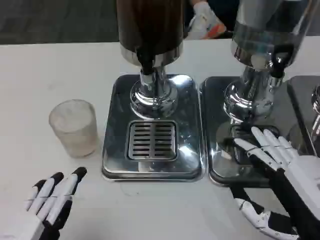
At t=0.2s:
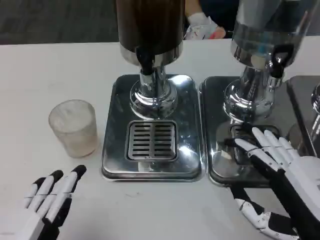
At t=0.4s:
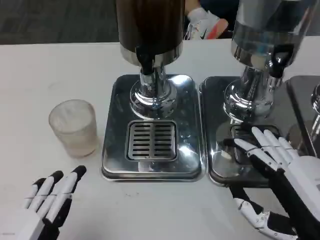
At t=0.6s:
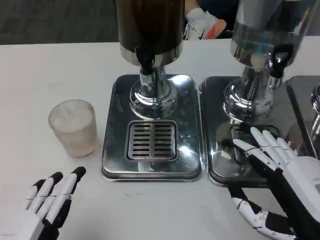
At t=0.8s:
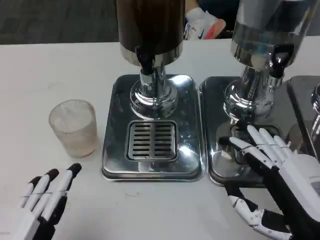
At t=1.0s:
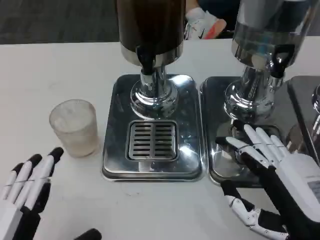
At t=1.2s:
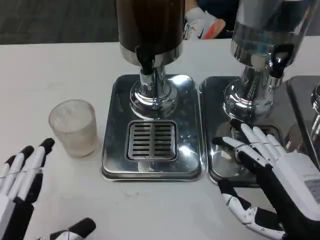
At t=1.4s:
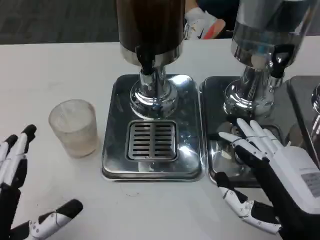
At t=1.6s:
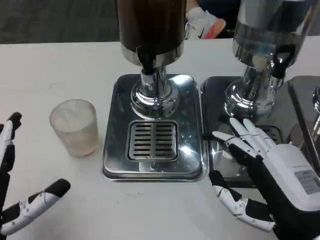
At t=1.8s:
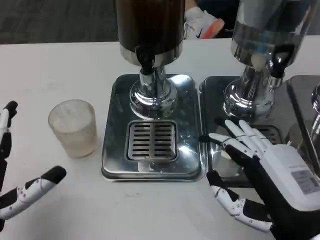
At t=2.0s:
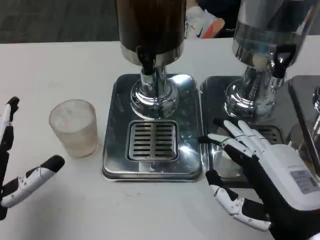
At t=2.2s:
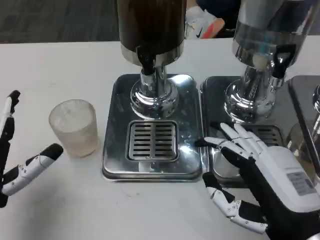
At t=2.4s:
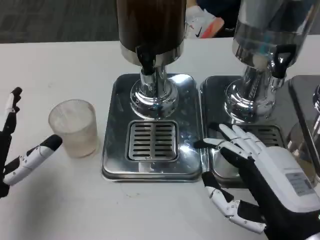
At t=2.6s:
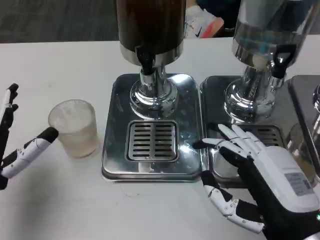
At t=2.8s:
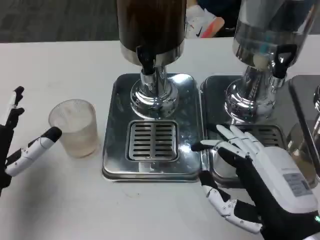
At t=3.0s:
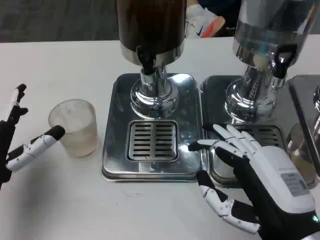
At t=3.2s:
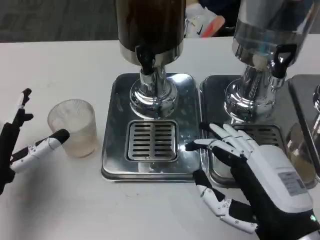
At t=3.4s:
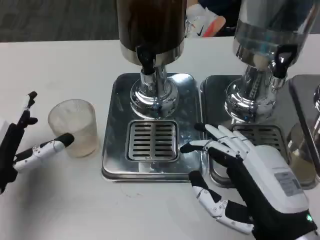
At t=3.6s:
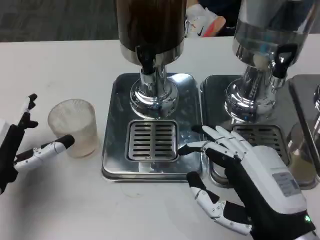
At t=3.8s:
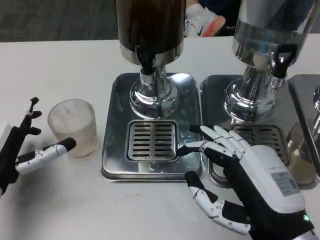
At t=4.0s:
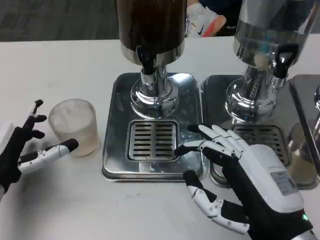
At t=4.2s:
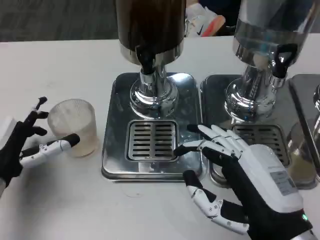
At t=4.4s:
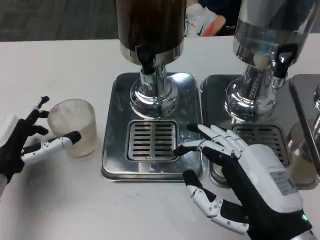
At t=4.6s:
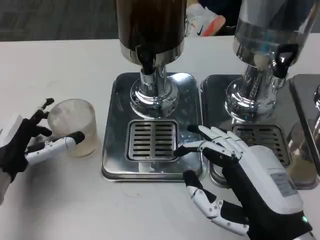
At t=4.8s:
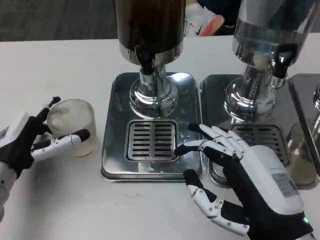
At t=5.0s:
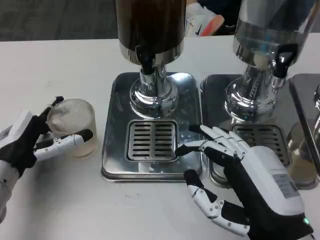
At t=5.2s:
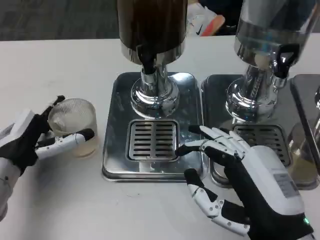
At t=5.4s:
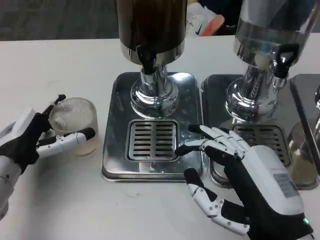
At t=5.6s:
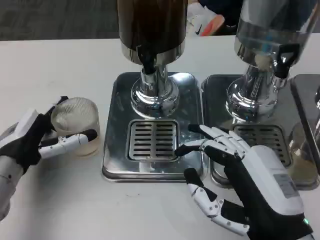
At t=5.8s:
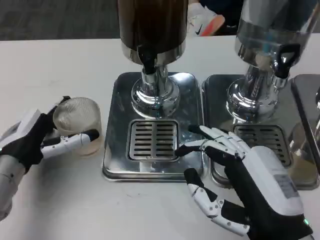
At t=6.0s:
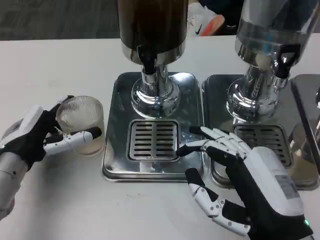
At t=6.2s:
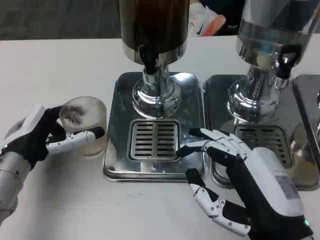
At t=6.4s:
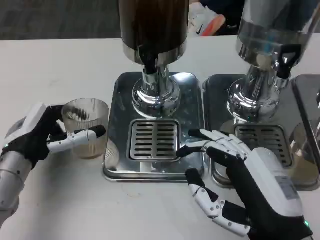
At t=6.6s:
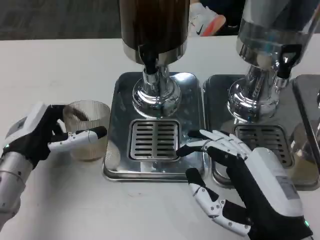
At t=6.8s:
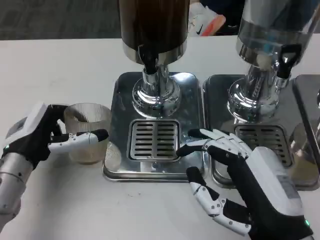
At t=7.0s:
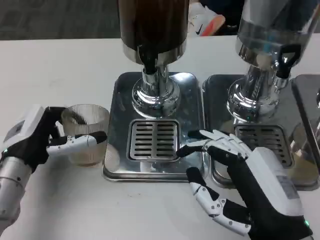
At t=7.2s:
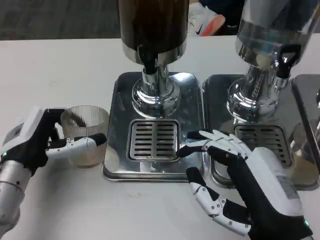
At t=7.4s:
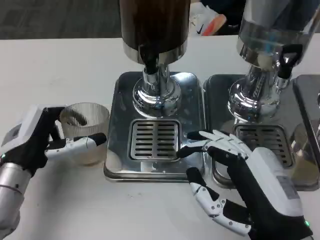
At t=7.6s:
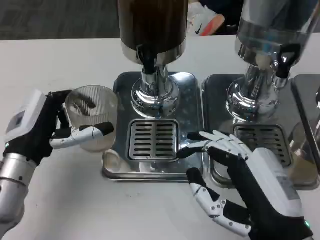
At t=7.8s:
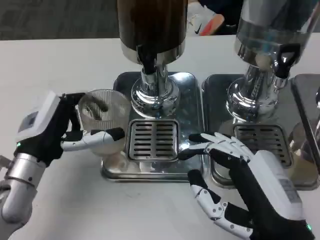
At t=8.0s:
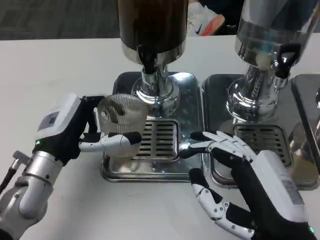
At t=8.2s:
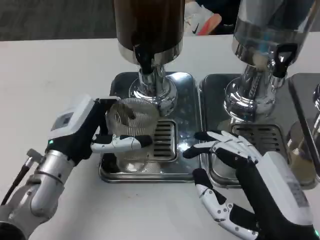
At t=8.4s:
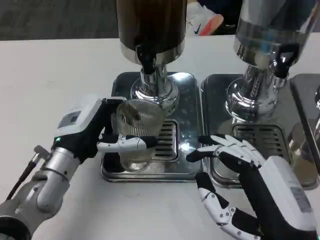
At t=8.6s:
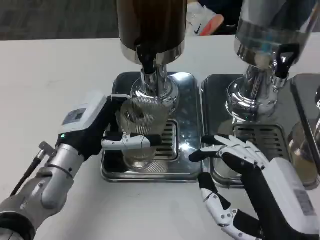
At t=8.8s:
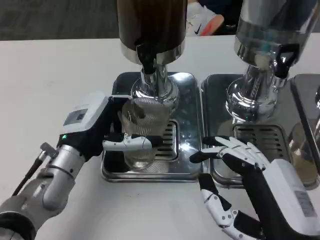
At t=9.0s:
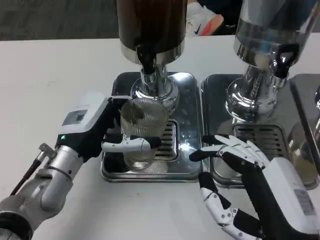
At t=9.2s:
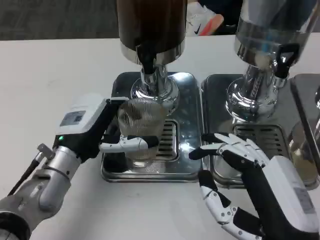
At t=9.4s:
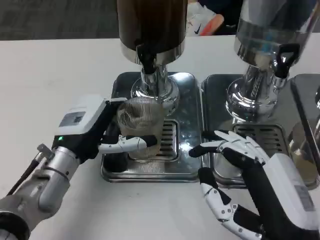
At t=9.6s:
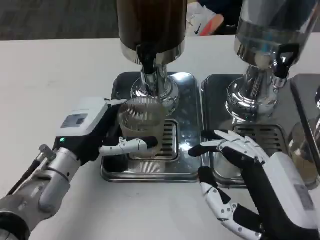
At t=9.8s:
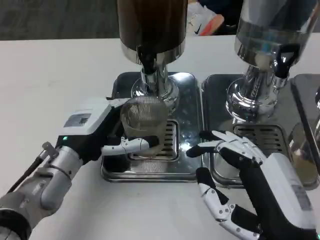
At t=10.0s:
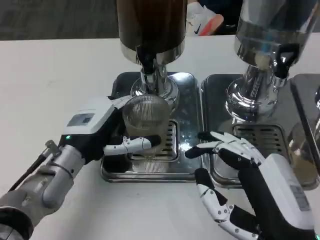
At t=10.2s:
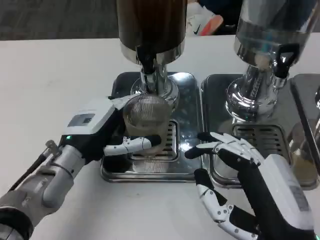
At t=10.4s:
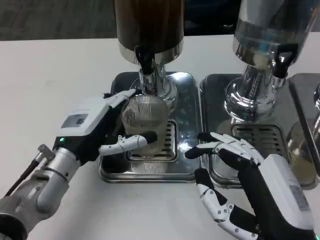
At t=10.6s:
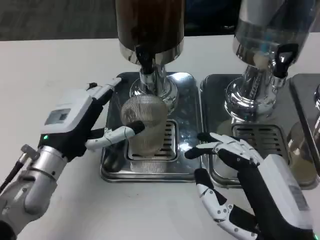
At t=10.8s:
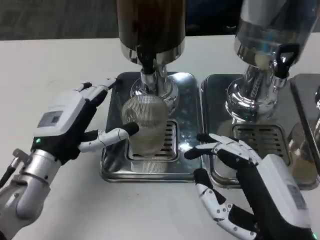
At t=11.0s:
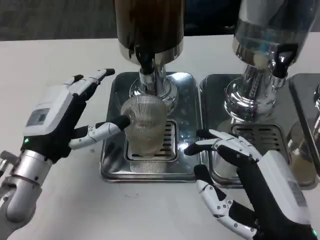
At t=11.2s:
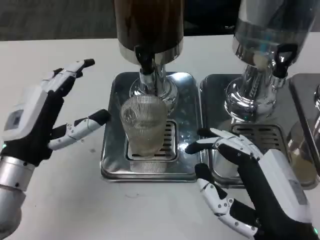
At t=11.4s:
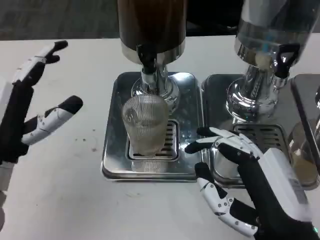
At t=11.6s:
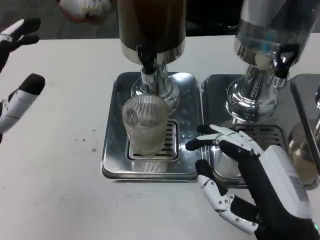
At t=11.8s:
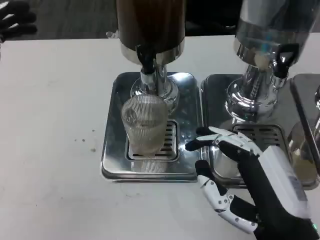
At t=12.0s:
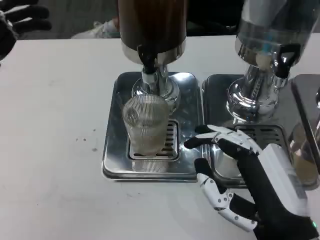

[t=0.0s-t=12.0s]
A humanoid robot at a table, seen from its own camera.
Task of the whole recording: Grasp the cup under the faucet to collect the drink, then remove the cup.
t=0.0s to t=1.6s: The left hand travels forward by about 5 cm.
t=1.6s to t=3.0s: The left hand shifts roughly 10 cm forward.
t=3.0s to t=4.4s: The hands make only small movements.
t=7.6s to t=9.0s: The left hand is displaced to the right by about 5 cm.
t=9.0s to t=10.4s: The hands move only a little.
t=10.4s to t=12.0s: The left hand heads upward and to the left, covering approximately 15 cm.

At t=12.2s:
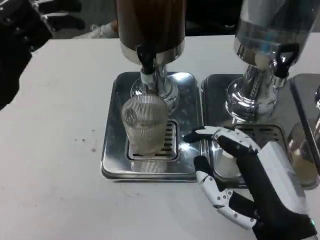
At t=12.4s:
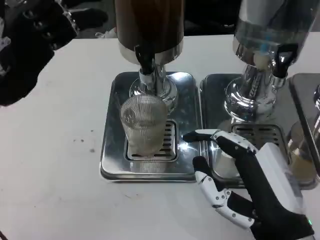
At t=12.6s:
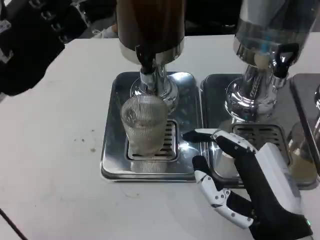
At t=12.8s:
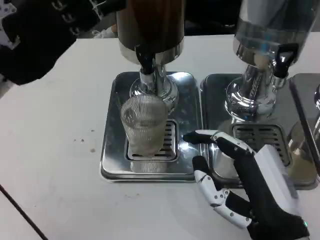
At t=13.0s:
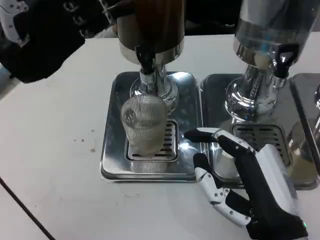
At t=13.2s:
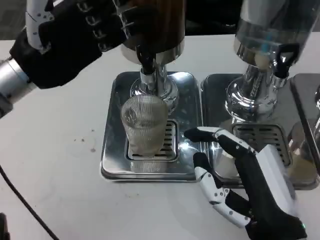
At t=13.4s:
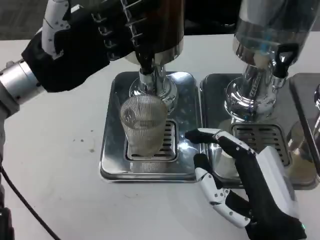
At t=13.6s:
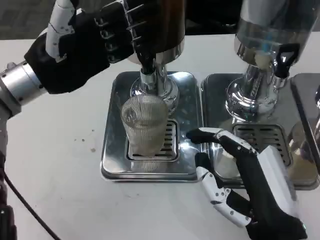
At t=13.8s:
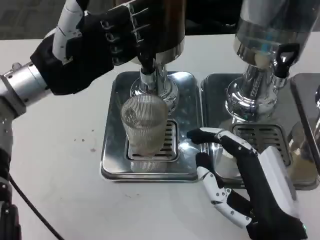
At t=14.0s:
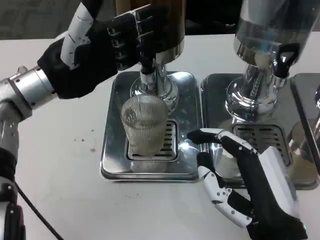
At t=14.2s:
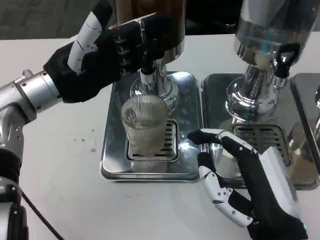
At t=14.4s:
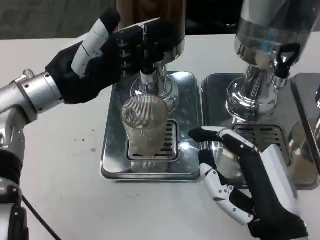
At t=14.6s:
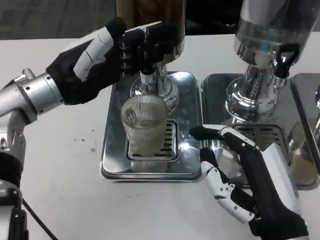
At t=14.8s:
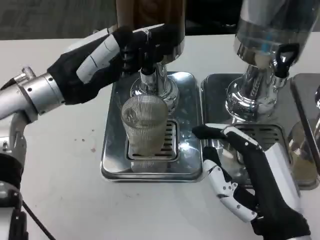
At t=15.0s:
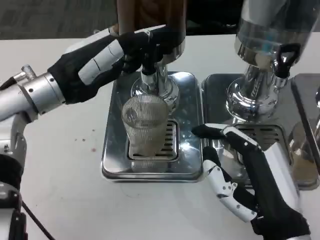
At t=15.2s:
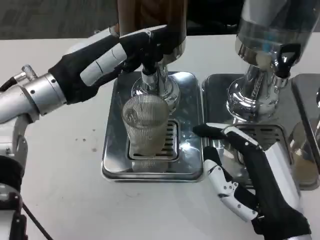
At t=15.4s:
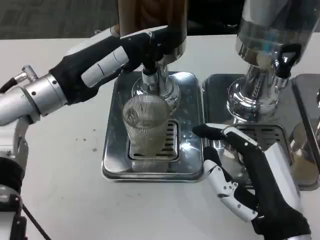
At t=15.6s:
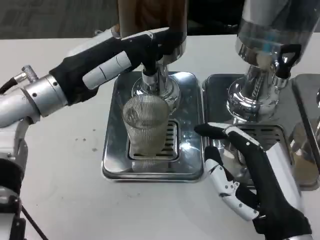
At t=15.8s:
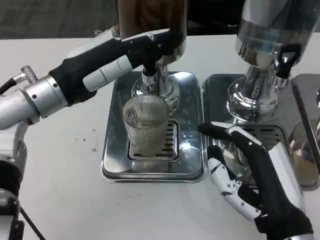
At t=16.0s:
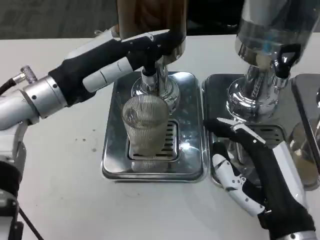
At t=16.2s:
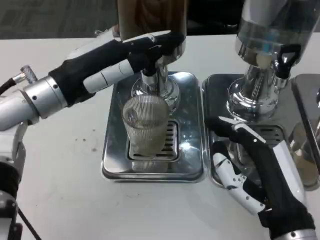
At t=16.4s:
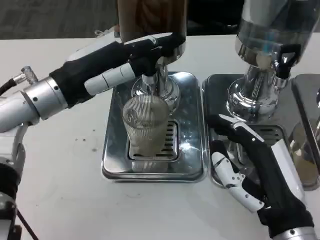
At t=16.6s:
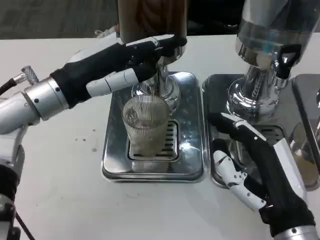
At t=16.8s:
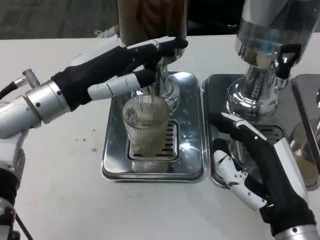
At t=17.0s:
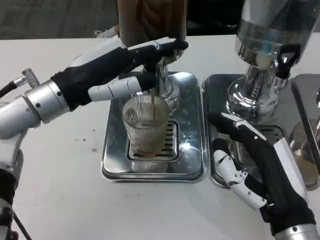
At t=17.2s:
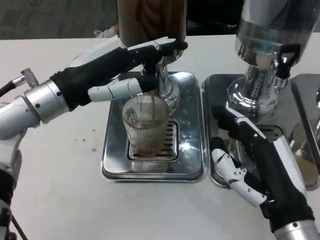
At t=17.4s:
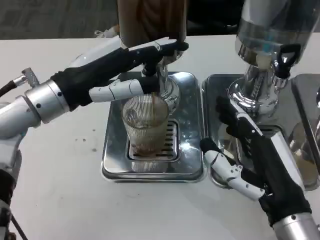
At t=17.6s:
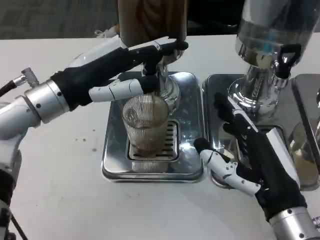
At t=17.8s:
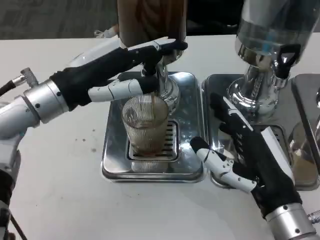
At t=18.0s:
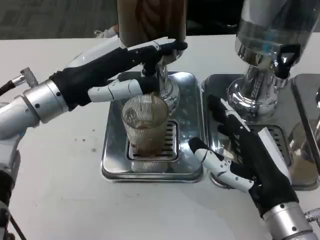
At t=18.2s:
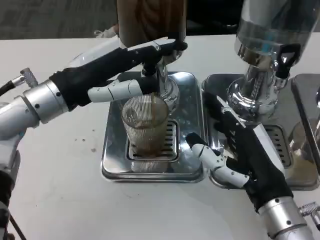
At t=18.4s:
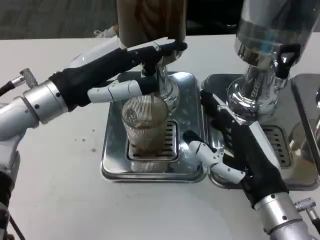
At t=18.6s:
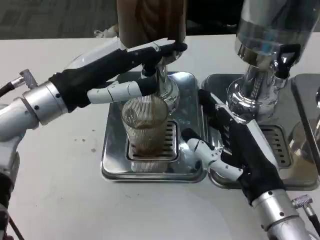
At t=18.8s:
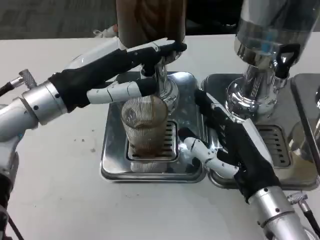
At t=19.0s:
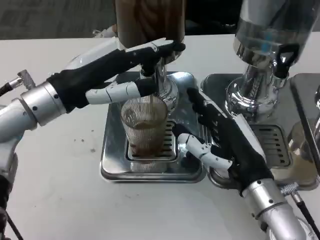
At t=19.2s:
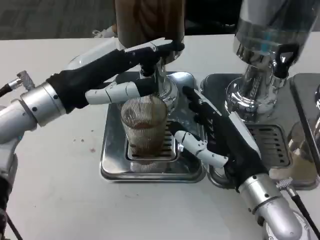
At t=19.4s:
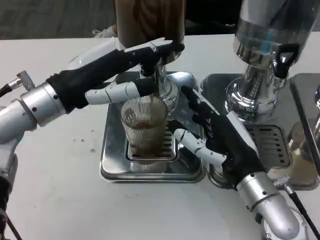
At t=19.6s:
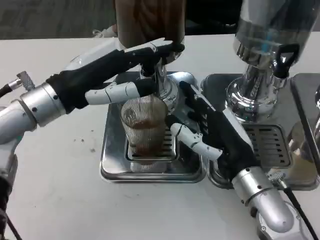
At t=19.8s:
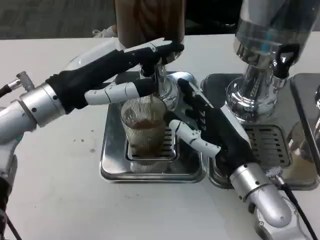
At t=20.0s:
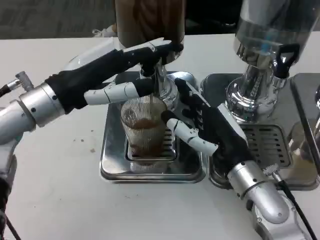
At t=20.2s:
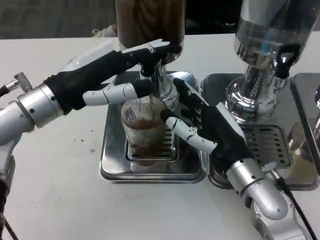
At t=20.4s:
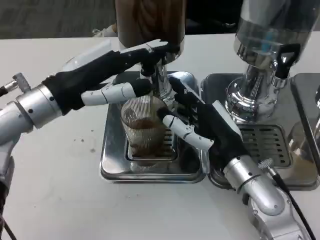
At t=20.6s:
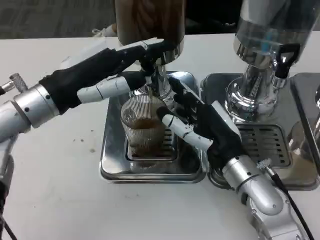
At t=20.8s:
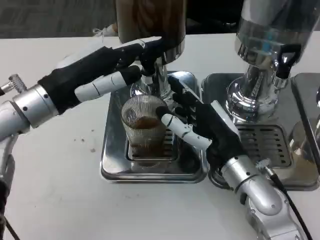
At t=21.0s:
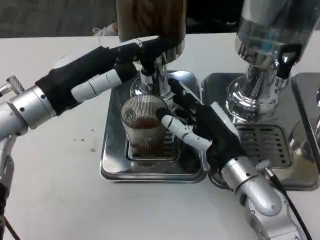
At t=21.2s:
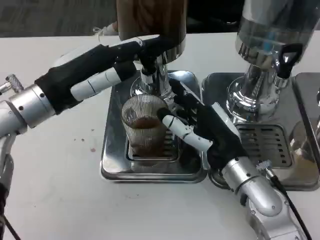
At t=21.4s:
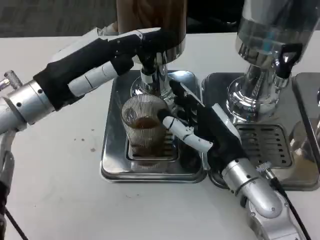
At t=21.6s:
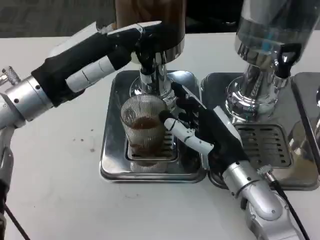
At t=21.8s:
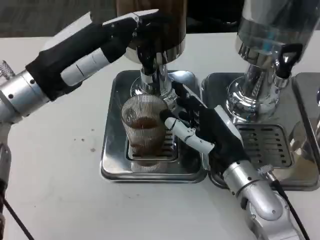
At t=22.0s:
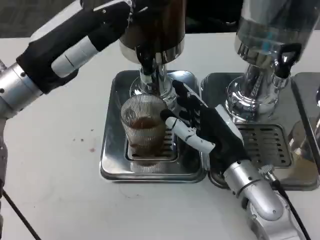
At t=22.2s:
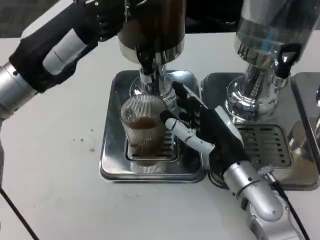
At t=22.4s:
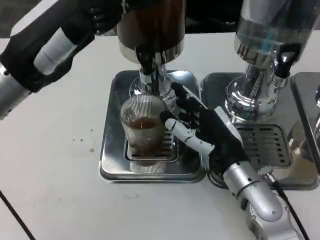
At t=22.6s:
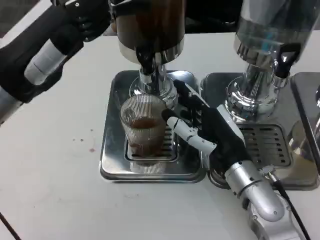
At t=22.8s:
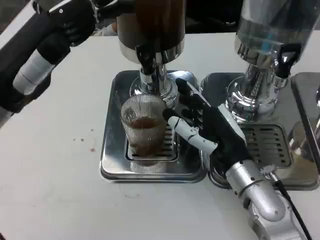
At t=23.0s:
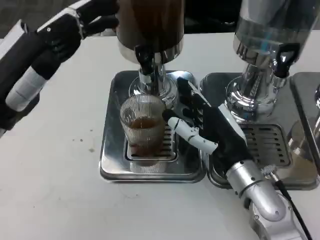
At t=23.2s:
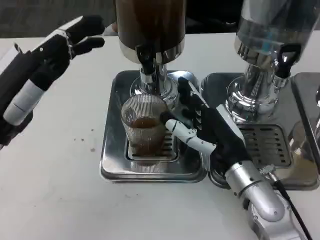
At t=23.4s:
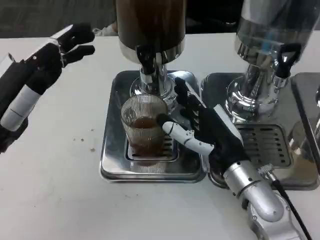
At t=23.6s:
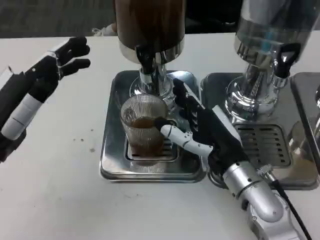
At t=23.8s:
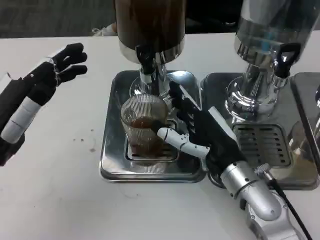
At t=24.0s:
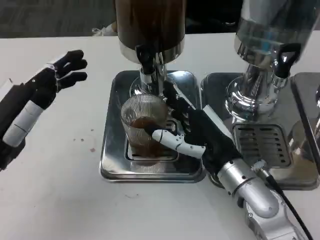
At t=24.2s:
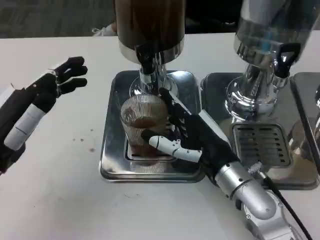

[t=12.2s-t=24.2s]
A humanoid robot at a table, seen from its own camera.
Task of the whole recording: Grasp the cup under the faucet to collect the drink, then remove the cup.
t=12.2s to t=13.8s: The left hand is displaced forward by some 10 cm.
t=16.6s to t=18.2s: The hands make only small movements.
t=18.2s to t=19.8s: The right hand shifts approximately 5 cm forward.
t=22.6s to t=24.2s: The left hand goes some 10 cm downward and backward.
